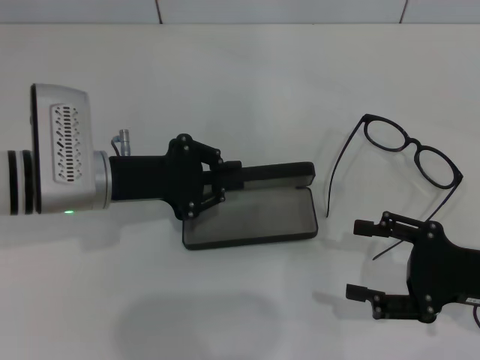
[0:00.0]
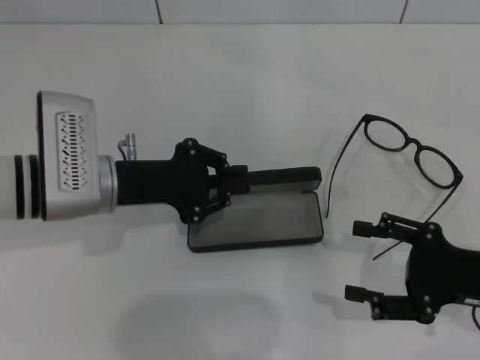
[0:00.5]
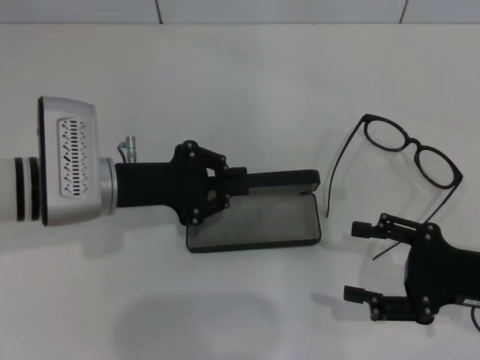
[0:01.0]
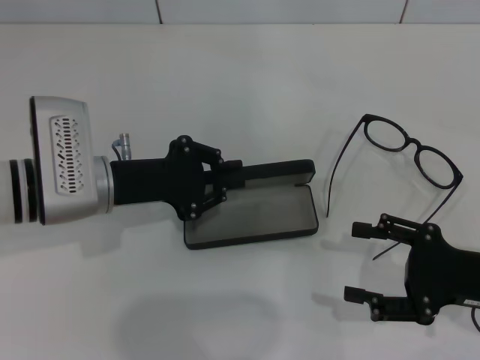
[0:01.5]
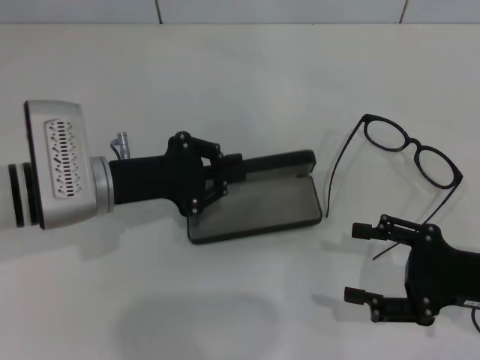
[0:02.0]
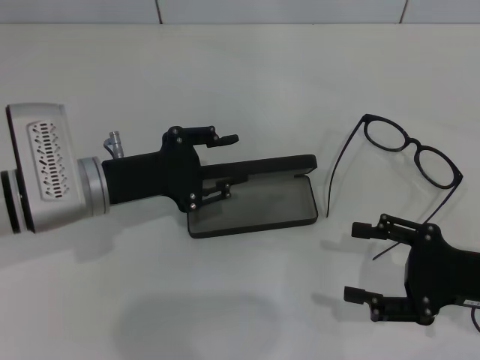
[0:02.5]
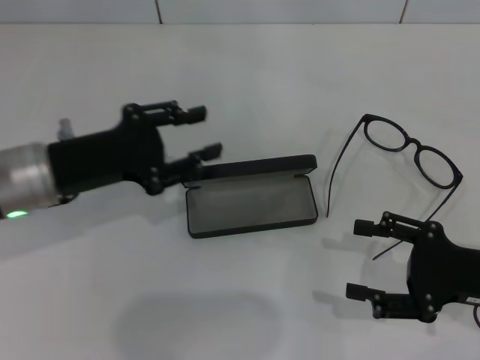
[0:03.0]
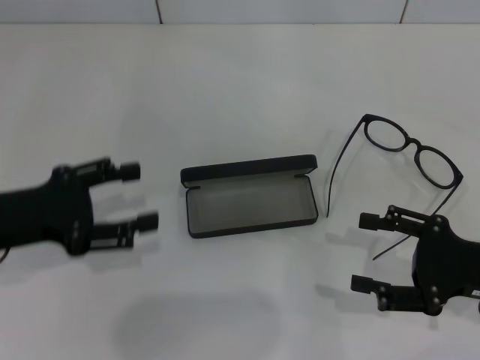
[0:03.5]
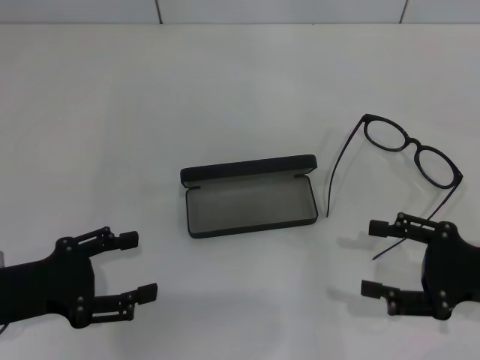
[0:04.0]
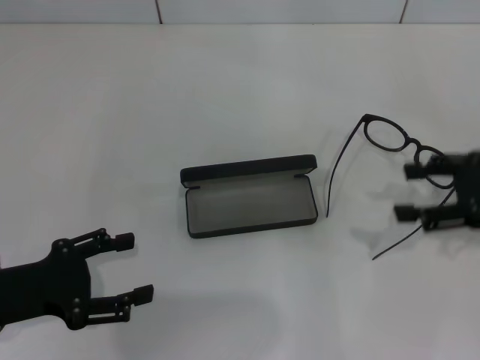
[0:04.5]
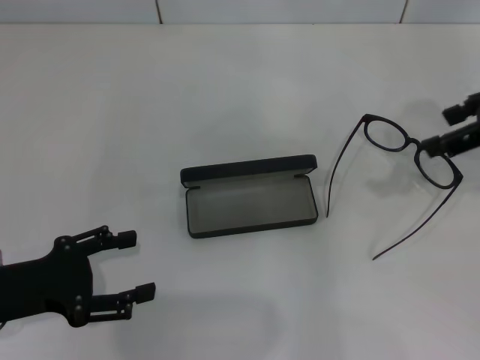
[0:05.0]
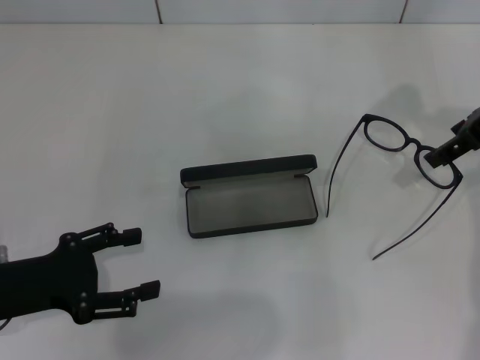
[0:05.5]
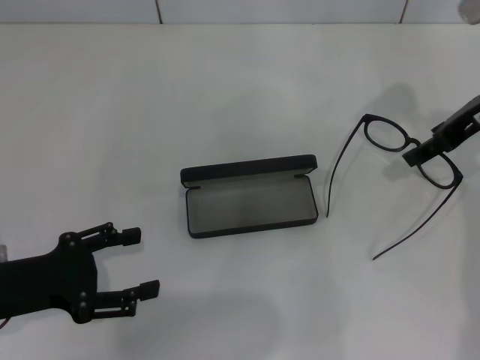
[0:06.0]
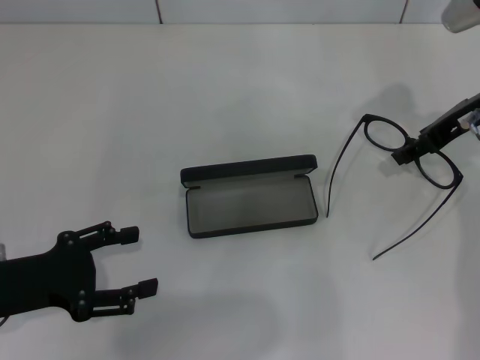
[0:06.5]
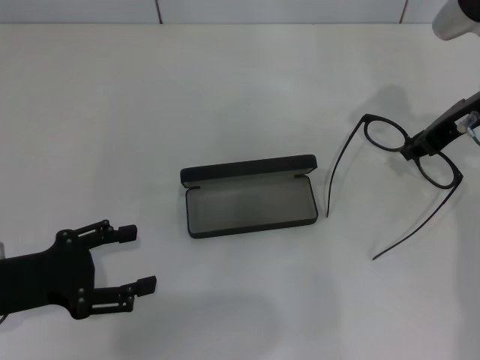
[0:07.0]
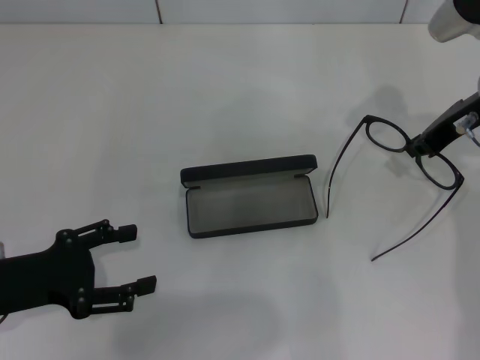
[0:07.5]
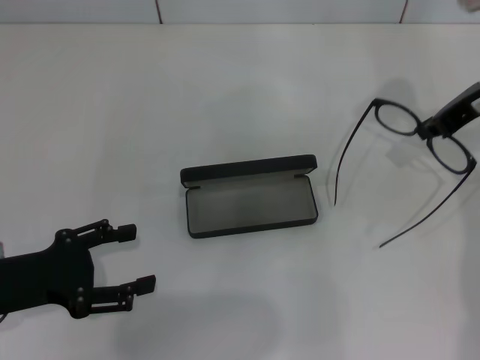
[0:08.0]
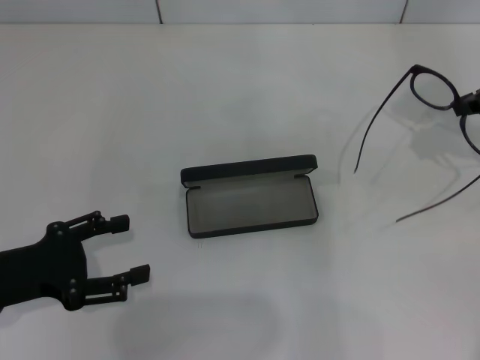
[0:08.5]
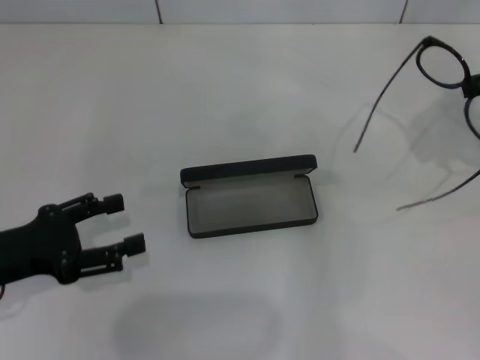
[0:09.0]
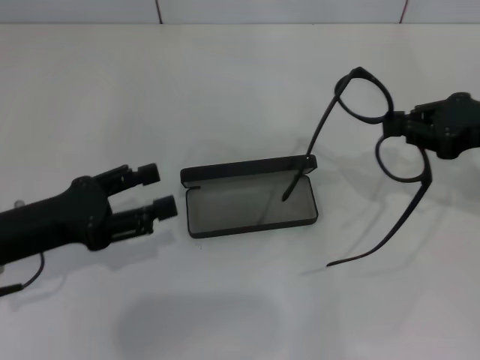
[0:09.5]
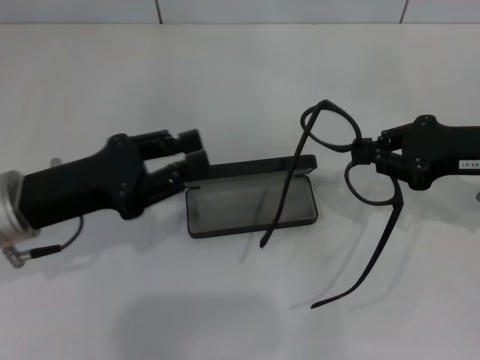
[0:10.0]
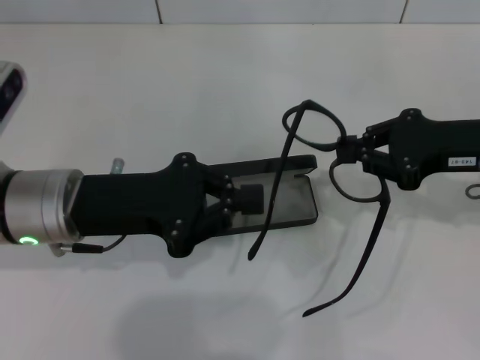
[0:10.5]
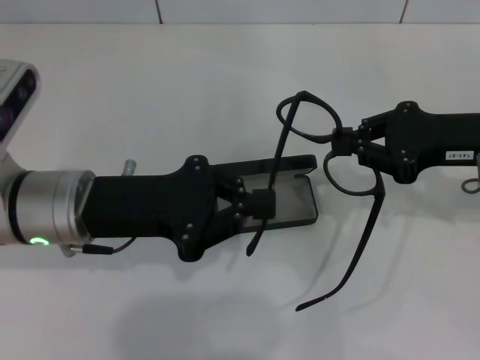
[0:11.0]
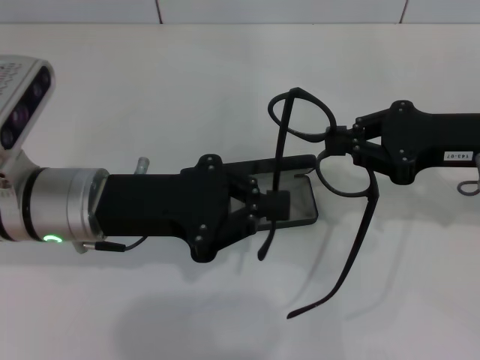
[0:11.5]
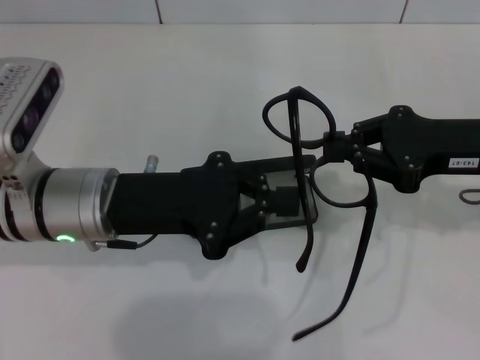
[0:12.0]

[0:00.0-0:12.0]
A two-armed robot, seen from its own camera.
Step, 0:00.0 to 0:02.0: Place the glasses case in the center of the table with your left hand.
Step, 0:02.5 to 0:07.0: Grab the eyeglass frame with your right hand.
0:00.0 to 0:02.0: The grippers make only small movements.
0:02.0 to 0:04.0: The left gripper goes about 15 cm backward and to the left, and opens up.
0:04.0 to 0:06.0: The right gripper moves forward and upward, roughly 20 cm.
0:06.0 to 0:08.0: The right gripper closes.
0:08.0 to 0:10.0: The left gripper travels forward and to the right by some 10 cm; the right gripper heads backward and downward, covering approximately 10 cm.
0:10.0 to 0:12.0: The left gripper is displaced to the right by some 5 cm, and closes.

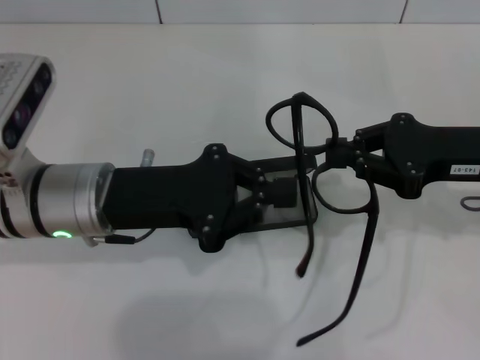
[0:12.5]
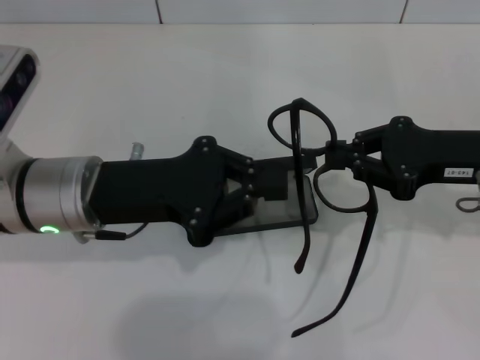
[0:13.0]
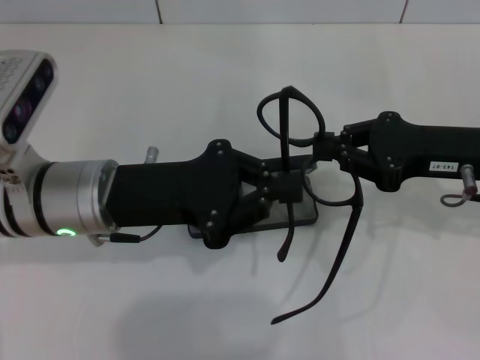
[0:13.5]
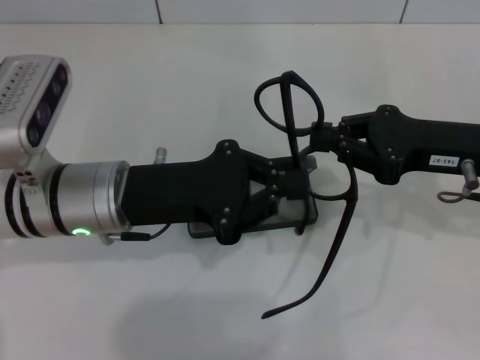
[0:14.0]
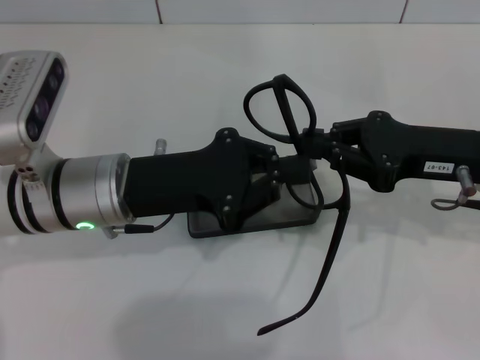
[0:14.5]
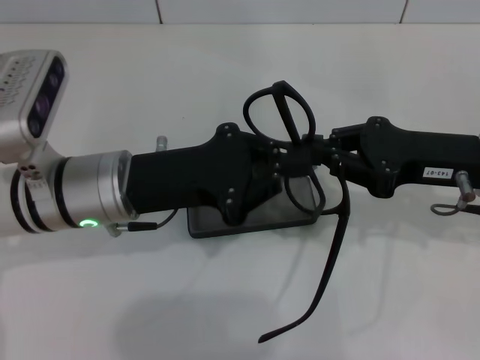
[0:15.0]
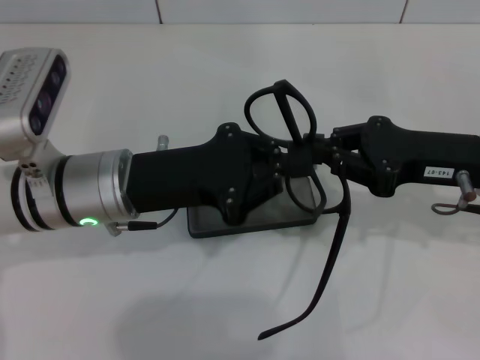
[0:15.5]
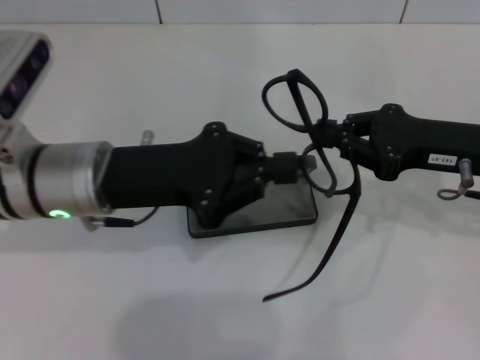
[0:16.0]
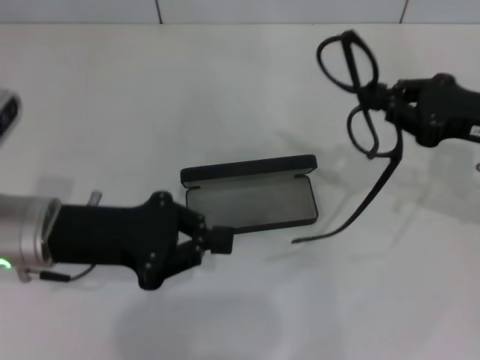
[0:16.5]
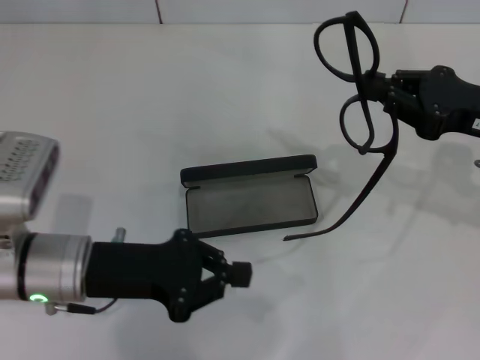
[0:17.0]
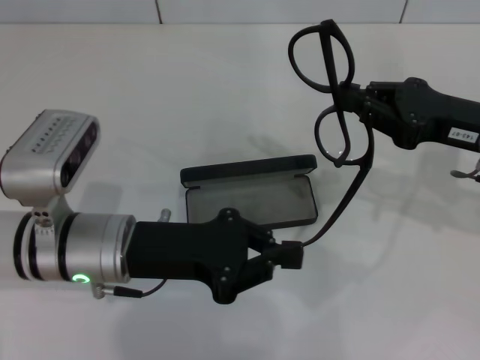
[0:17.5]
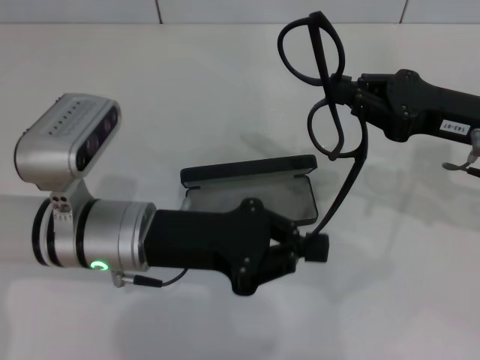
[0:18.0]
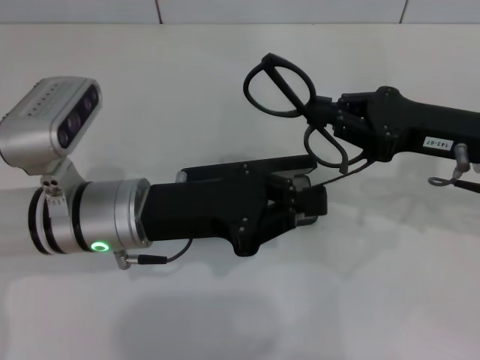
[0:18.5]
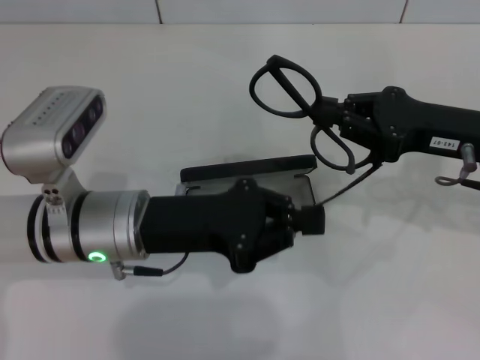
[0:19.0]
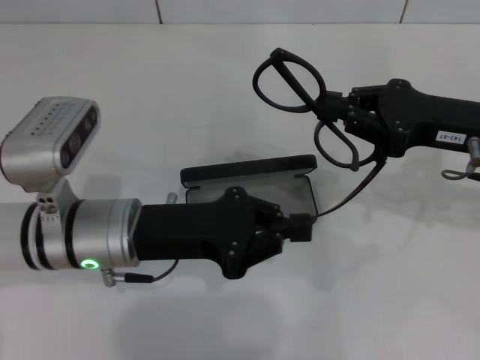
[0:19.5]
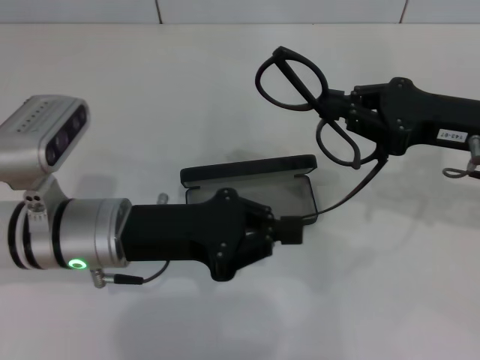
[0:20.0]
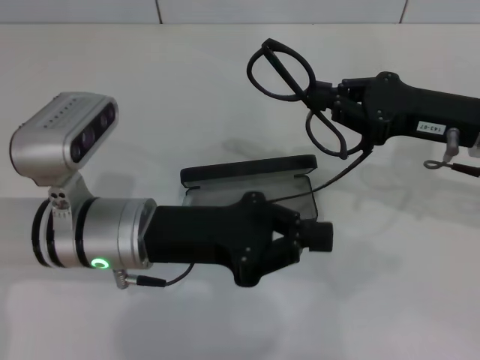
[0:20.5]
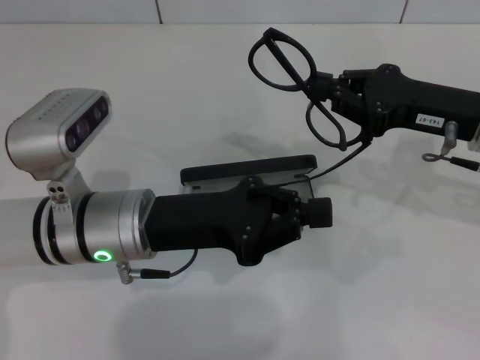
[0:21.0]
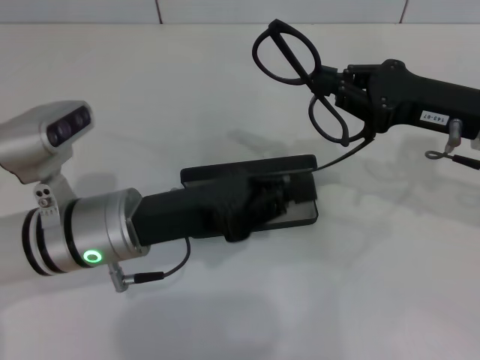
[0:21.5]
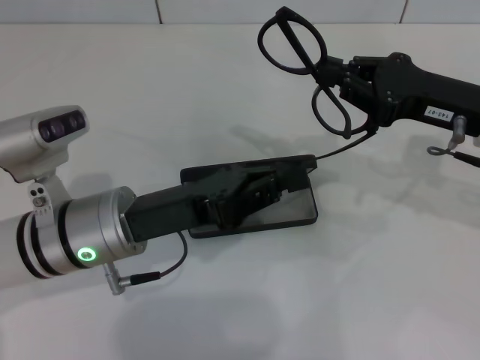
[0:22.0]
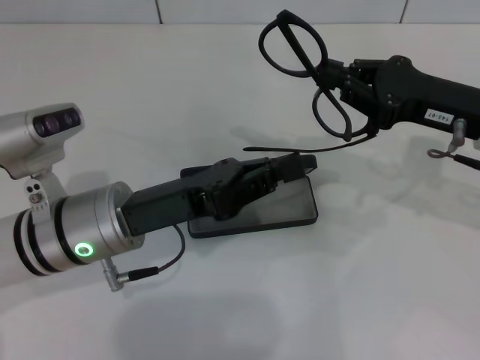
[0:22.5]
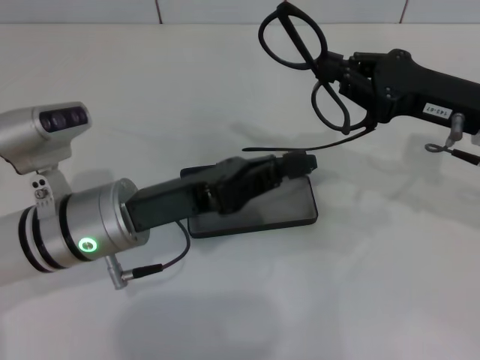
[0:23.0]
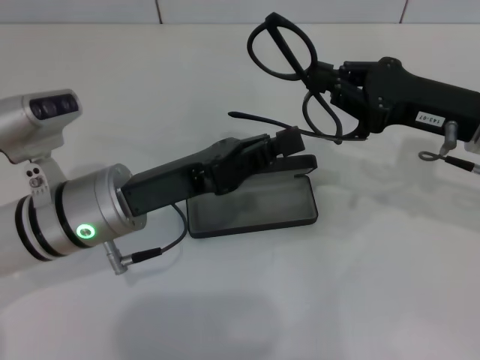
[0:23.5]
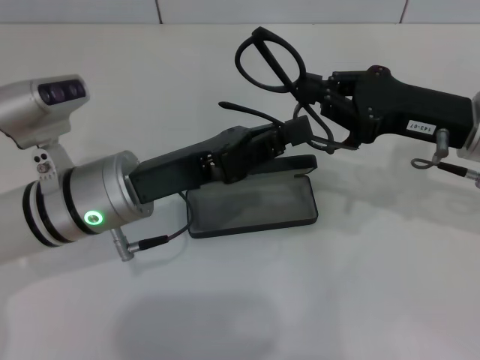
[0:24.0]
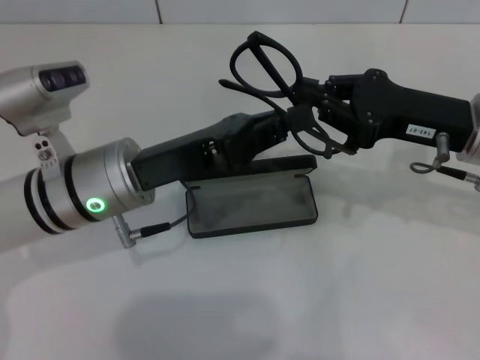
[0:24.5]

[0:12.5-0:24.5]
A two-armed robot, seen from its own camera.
0:12.5 to 0:14.5: There are only small adjustments of the grippers.
0:14.5 to 0:16.5: The left gripper is displaced to the left by roughly 5 cm.
0:16.5 to 0:18.5: The left gripper travels to the right by some 5 cm.

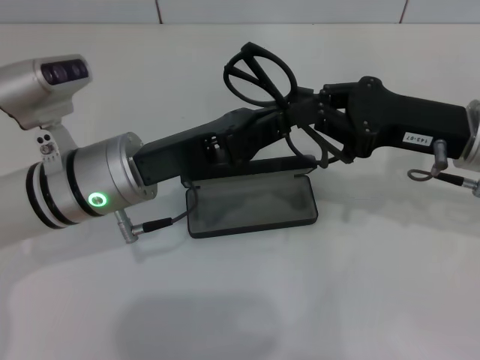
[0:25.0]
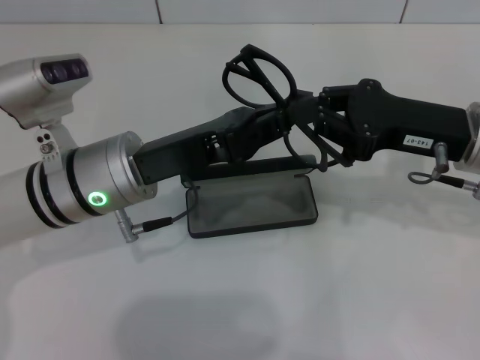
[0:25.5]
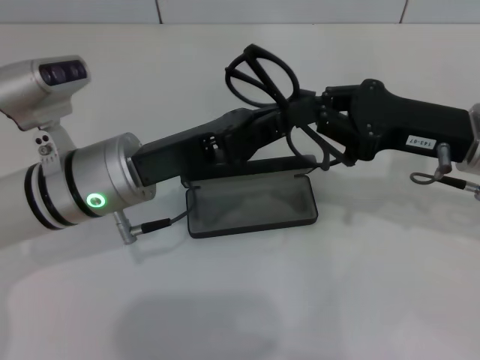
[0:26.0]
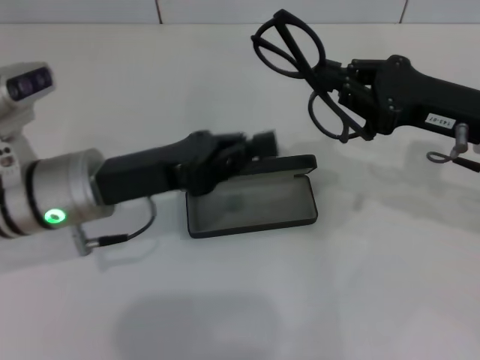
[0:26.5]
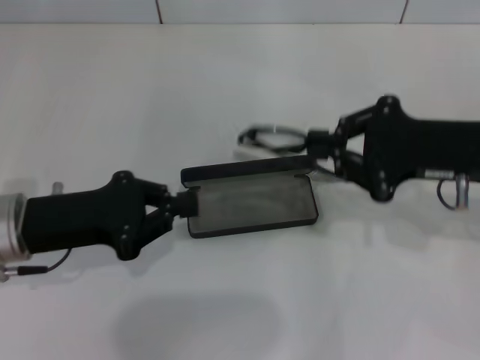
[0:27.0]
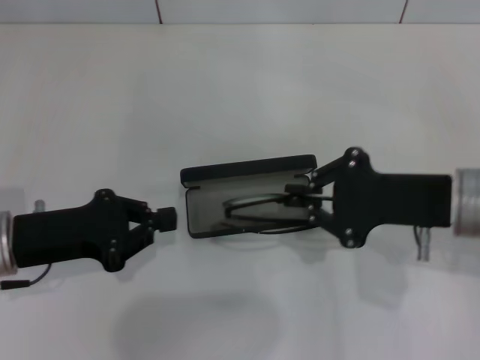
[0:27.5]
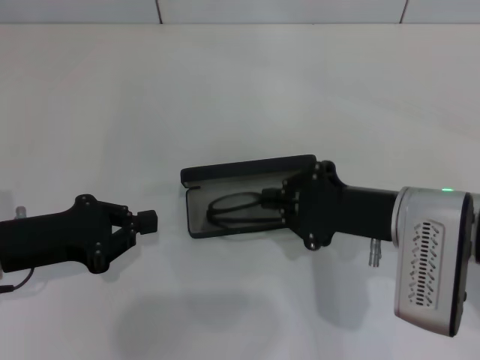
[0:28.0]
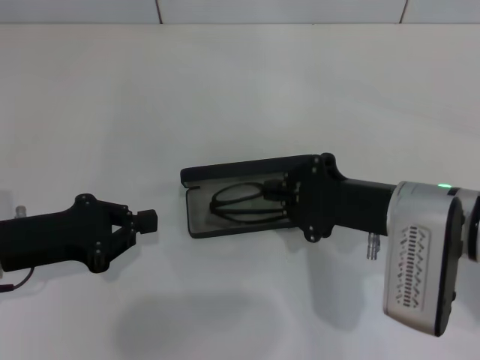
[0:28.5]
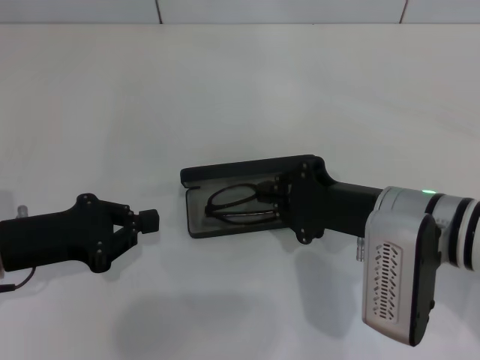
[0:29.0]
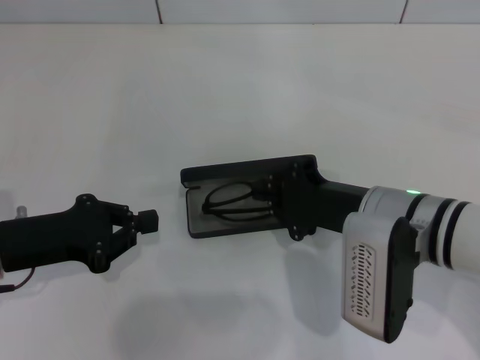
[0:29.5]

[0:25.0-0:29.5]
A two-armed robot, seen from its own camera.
0:25.0 to 0:27.0: The left gripper travels to the left by about 10 cm.
0:27.0 to 0:29.5: The right gripper shifts approximately 10 cm to the left and downward.
